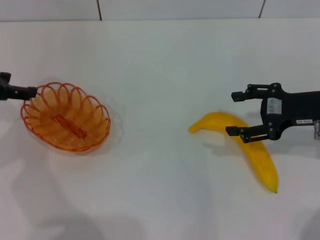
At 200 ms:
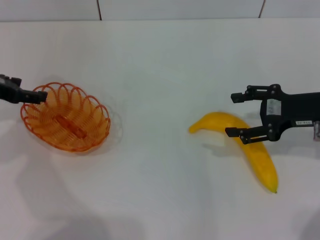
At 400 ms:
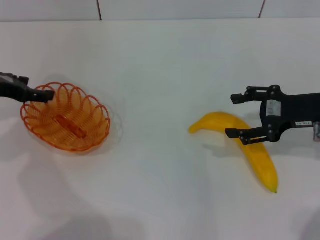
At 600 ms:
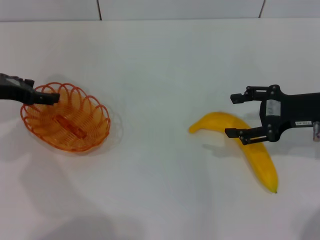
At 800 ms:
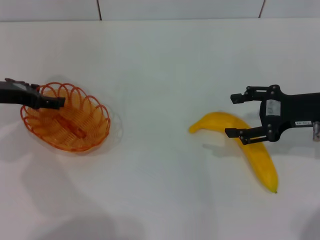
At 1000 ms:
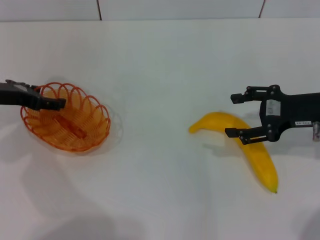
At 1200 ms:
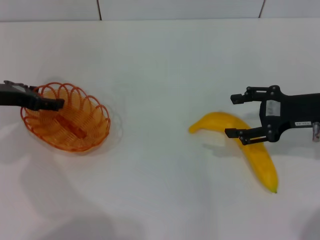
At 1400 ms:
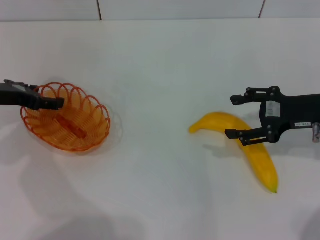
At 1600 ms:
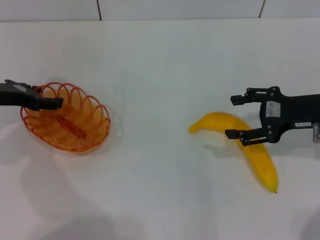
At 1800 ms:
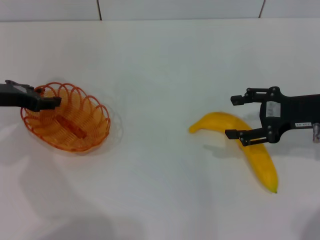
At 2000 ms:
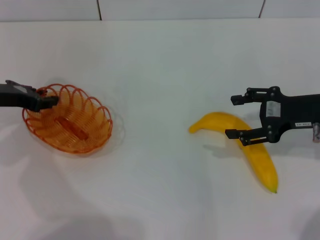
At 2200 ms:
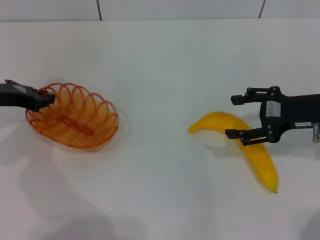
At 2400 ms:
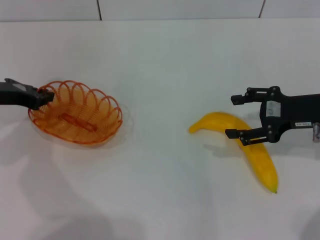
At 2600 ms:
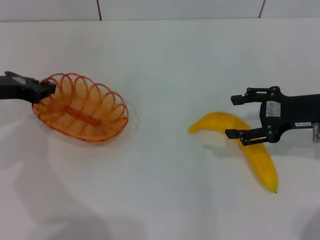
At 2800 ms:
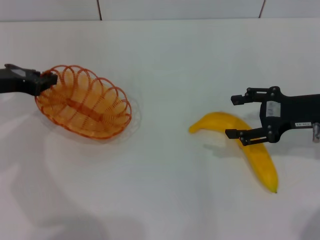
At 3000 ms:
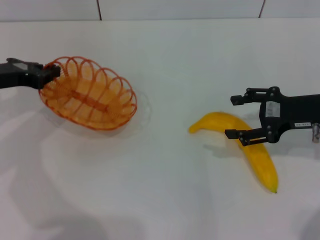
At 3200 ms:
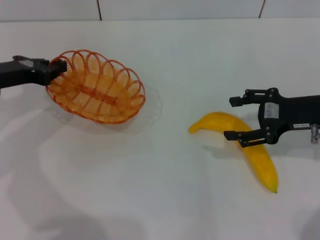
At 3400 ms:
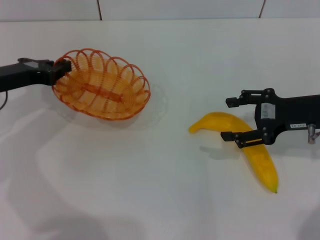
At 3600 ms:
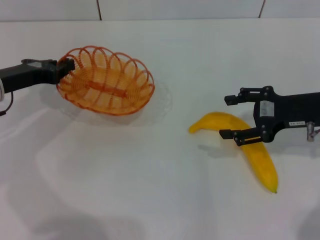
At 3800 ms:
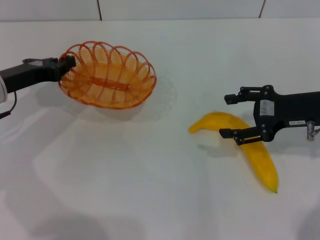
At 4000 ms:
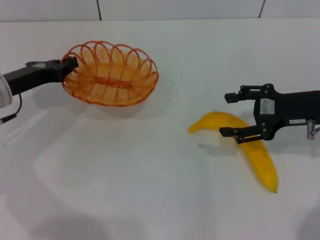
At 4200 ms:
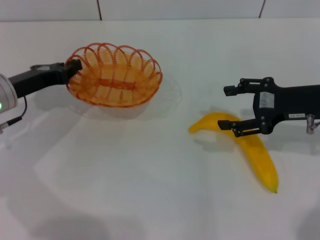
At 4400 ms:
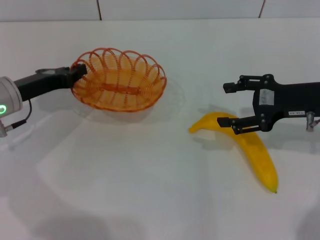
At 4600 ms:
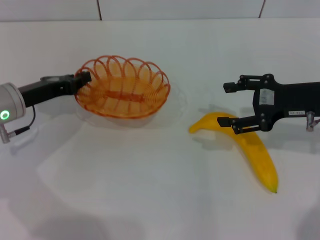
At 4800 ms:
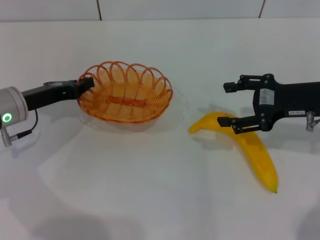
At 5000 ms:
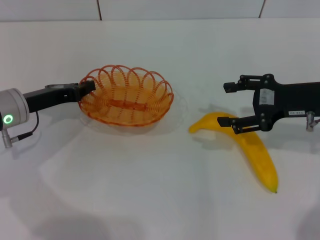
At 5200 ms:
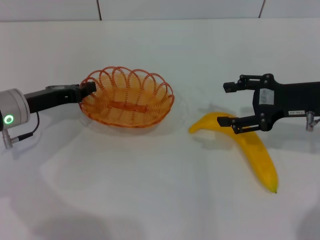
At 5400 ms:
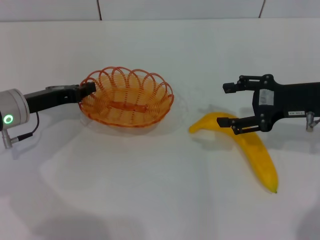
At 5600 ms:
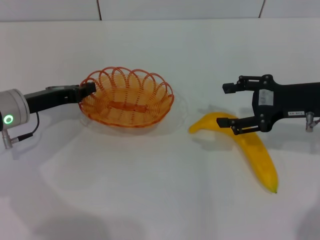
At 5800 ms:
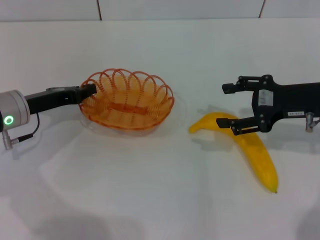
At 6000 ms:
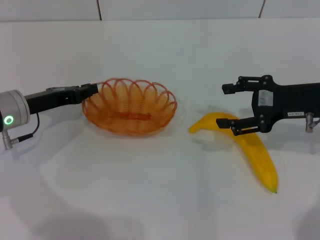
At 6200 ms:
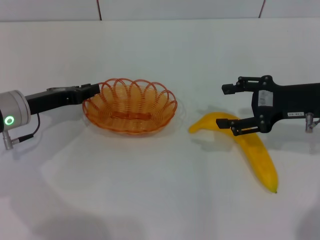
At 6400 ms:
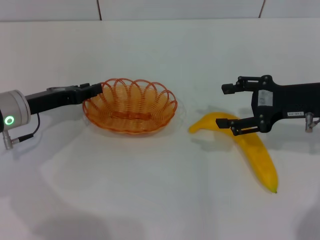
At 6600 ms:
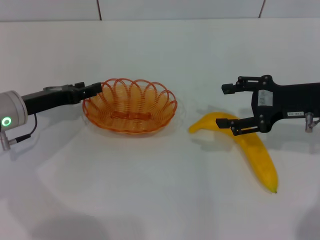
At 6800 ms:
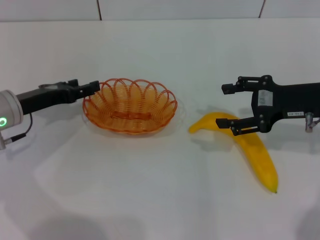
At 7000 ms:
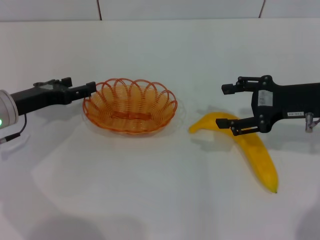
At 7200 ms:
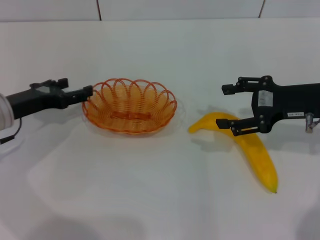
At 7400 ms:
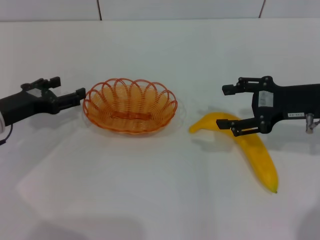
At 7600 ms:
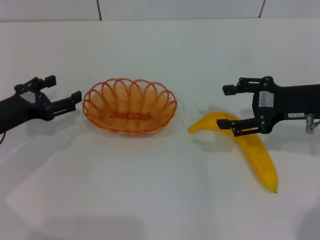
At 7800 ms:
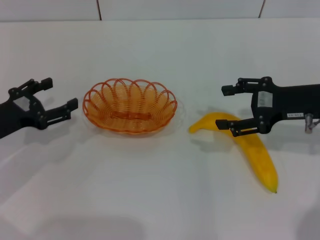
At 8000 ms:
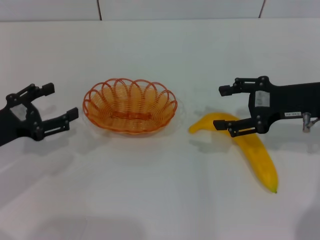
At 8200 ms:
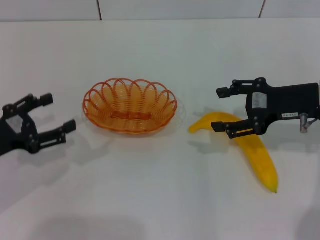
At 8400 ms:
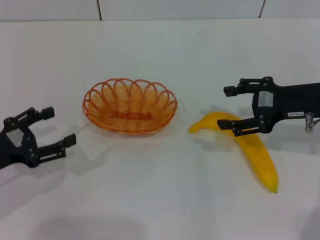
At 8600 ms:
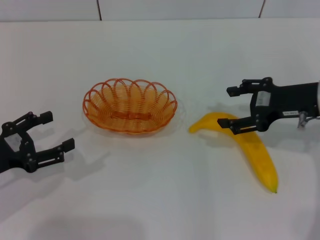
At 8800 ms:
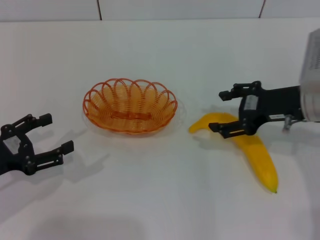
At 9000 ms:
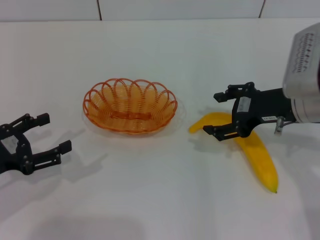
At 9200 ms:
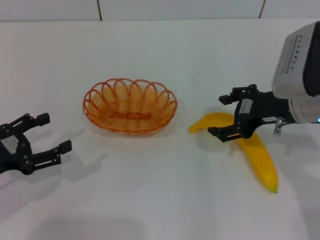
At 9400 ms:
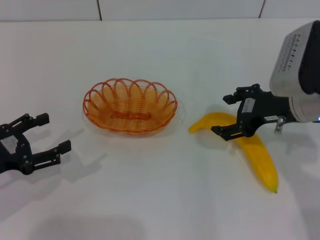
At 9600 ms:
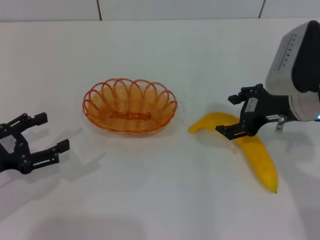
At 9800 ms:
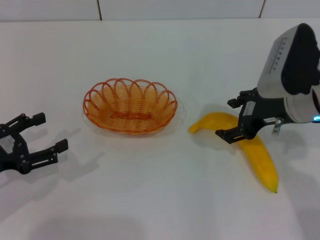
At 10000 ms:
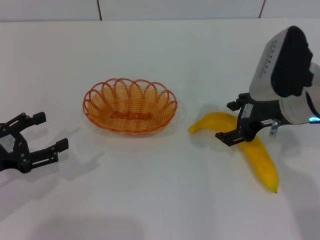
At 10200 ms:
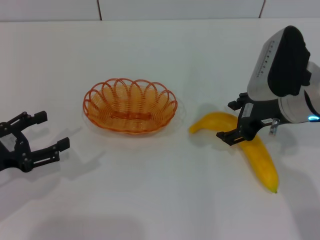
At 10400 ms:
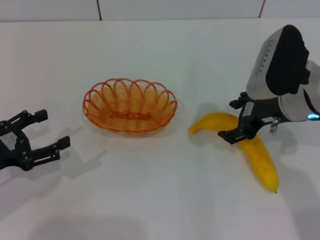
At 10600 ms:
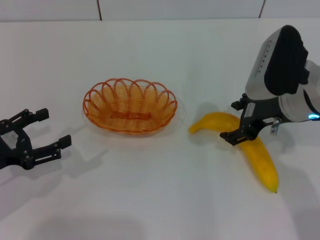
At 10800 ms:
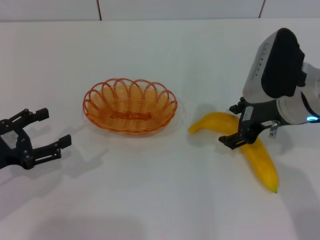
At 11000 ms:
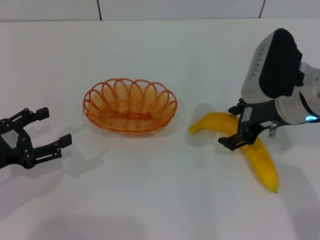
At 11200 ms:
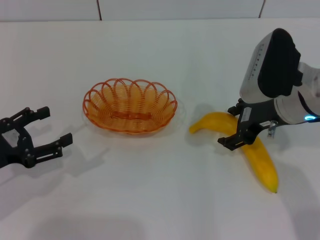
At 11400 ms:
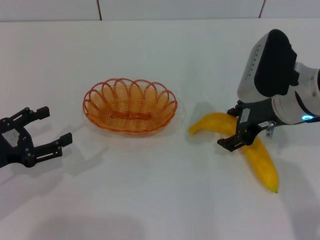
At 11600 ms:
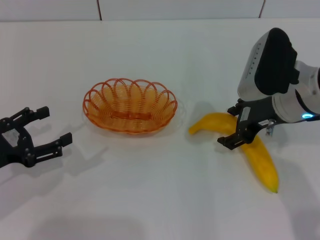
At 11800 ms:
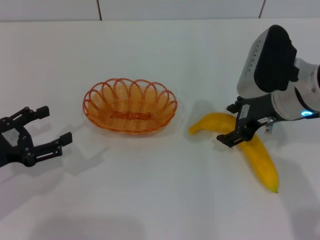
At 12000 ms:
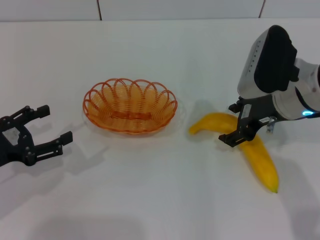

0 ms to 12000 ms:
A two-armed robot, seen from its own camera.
Step, 0 ms to 2800 ms: Pick up the basket with the left gripper.
Step, 3200 ms to 6800 ms: Place the basket in the center of view with the left gripper.
0 ms to 1600 ms: The left gripper moves downward, roughly 5 cm.
1600 ms to 3000 ms: The left gripper closes up.
3000 ms to 4400 ms: The left gripper shifts about 5 cm downward.
4400 ms to 6000 ms: The grippers move only a little.
6000 ms to 7600 ms: The left gripper changes place by some 5 cm, and opens its fingers.
7600 ms to 9000 ms: The left gripper heads backward, covering approximately 5 cm. Meanwhile the right gripper travels to the left by some 5 cm.
9000 ms to 10400 ms: The grippers stay close to where they were, moving slightly.
10400 ms to 12000 ms: Both grippers stay about where they are.

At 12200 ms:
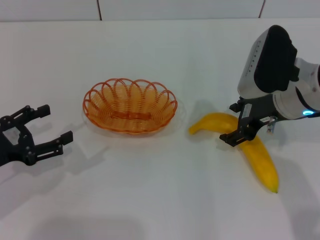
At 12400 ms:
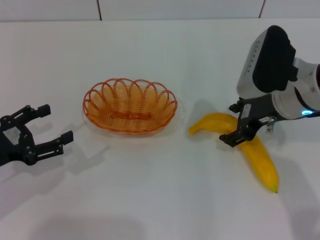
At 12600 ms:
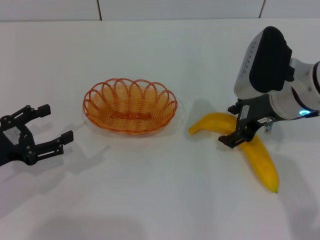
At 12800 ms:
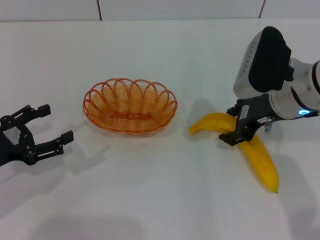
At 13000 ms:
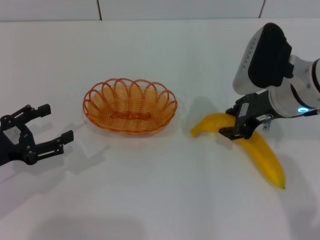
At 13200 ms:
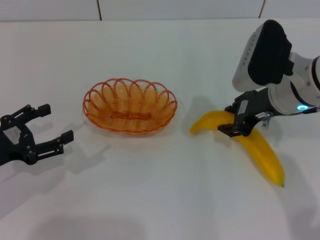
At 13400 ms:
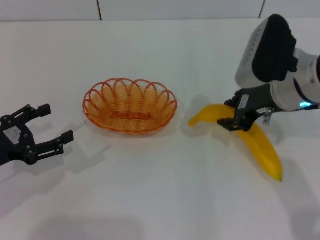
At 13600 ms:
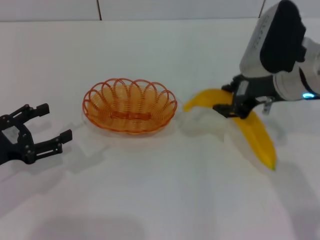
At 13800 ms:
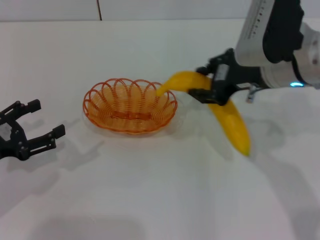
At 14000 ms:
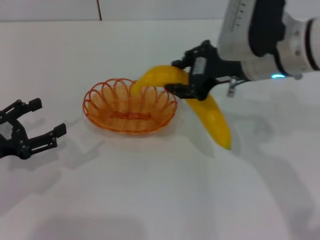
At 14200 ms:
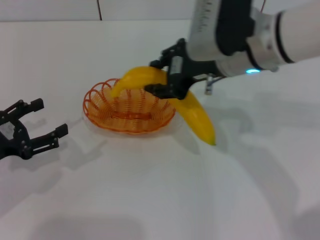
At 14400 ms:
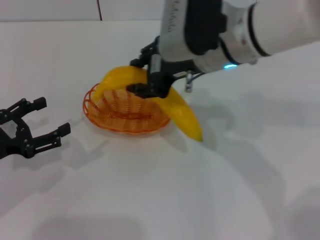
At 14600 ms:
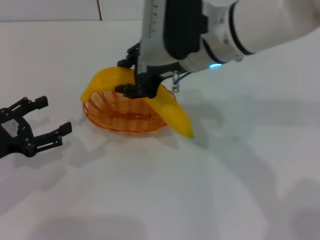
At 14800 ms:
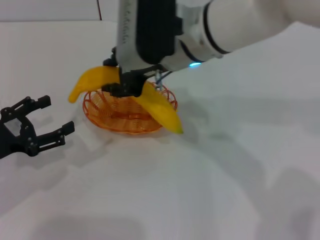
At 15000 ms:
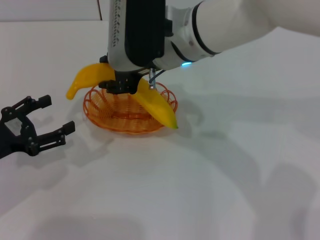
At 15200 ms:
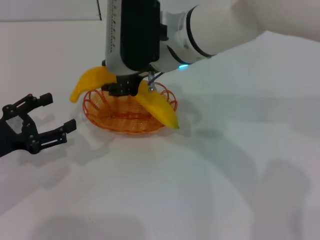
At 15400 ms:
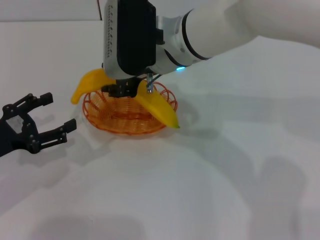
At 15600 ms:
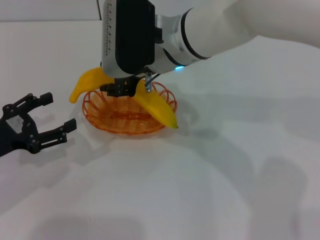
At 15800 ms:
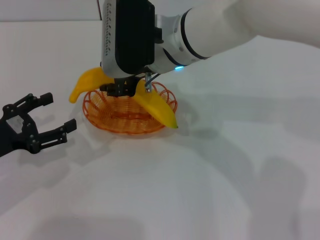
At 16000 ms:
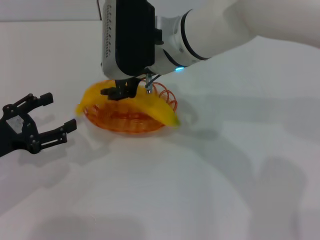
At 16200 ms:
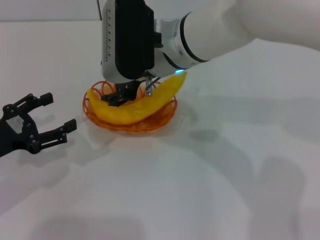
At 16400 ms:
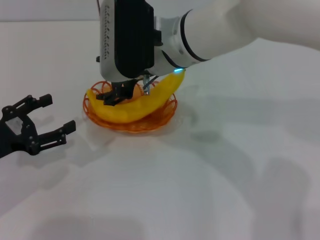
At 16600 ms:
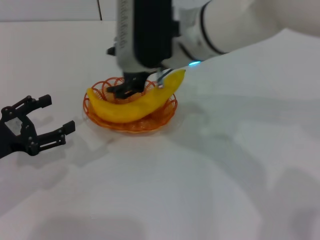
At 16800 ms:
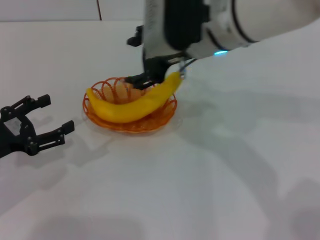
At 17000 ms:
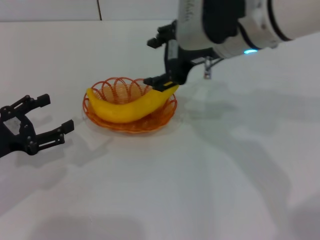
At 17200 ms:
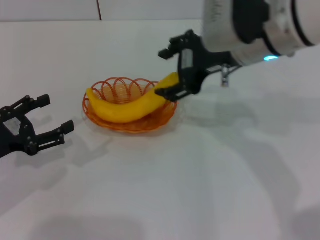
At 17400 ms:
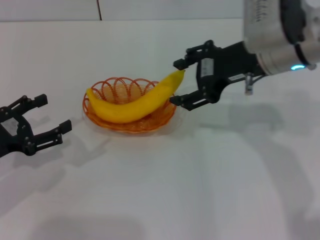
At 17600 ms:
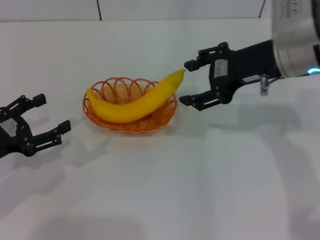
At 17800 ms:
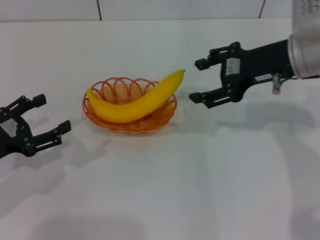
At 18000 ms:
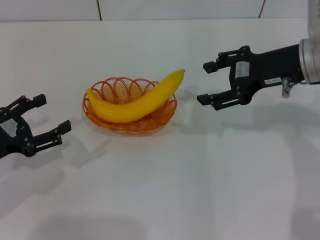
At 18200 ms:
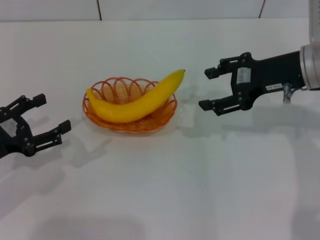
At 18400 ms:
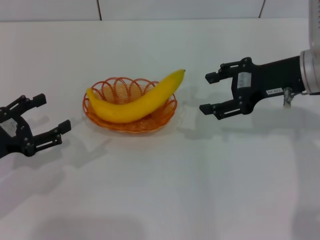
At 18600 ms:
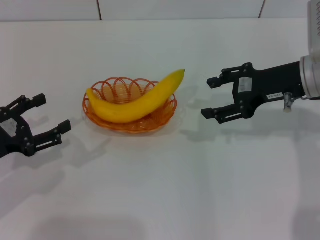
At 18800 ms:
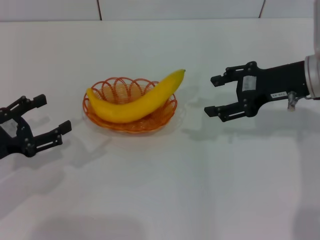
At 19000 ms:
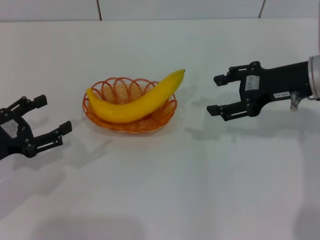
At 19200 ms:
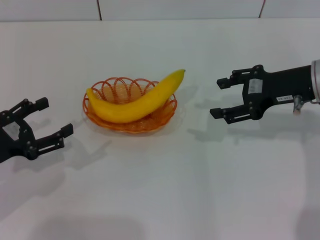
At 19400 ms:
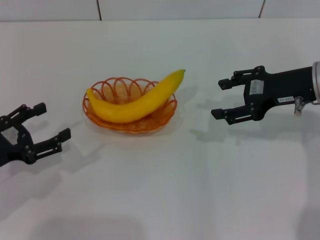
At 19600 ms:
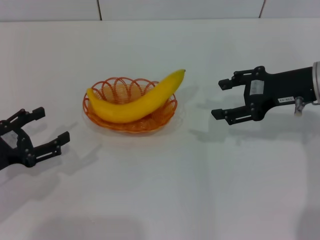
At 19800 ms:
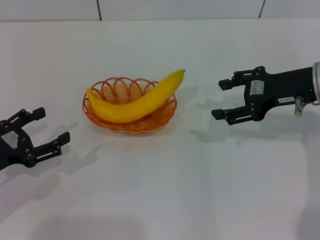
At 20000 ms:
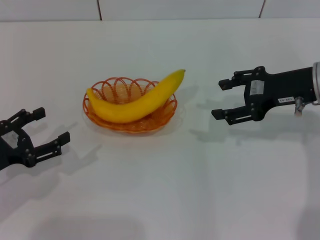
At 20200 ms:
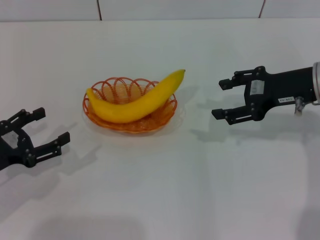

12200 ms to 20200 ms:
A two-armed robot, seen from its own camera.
Step, 13800 ms to 17200 ms: Place the banana into the basket with the right gripper.
12200 ms to 13800 ms: The right gripper moves roughly 5 cm, and closes its fingers.
13800 ms to 15400 ms: The right gripper moves to the left, approximately 15 cm.
15400 ms to 17000 ms: The right gripper heads to the right, covering roughly 10 cm, and opens.
17000 ms to 18600 ms: The right gripper heads to the right and downward, covering roughly 15 cm.
18600 ms to 20200 ms: The grippers move only a little.
